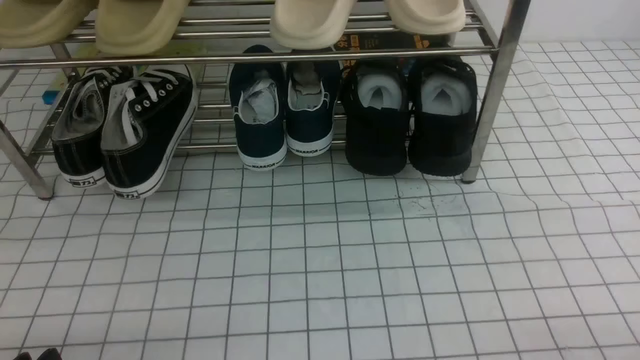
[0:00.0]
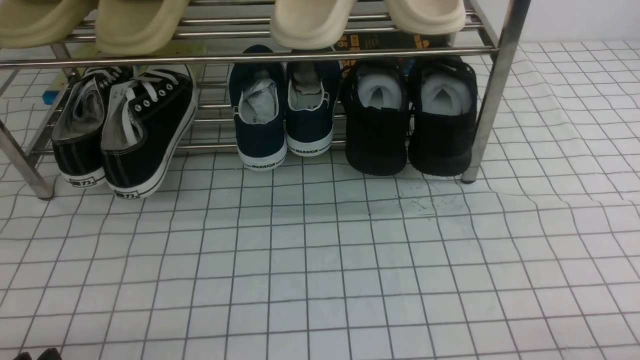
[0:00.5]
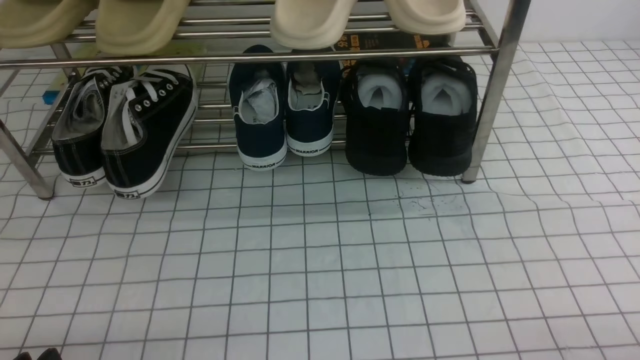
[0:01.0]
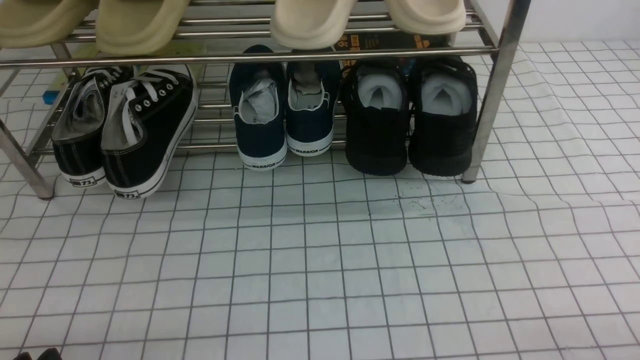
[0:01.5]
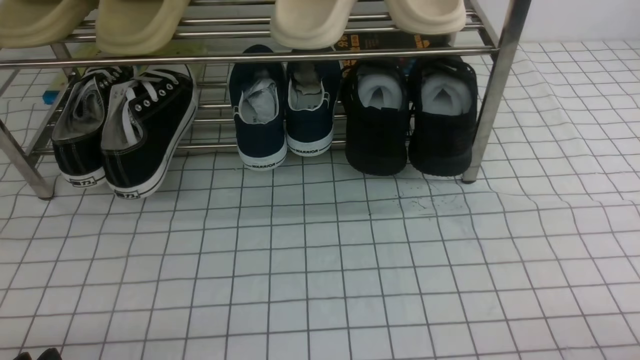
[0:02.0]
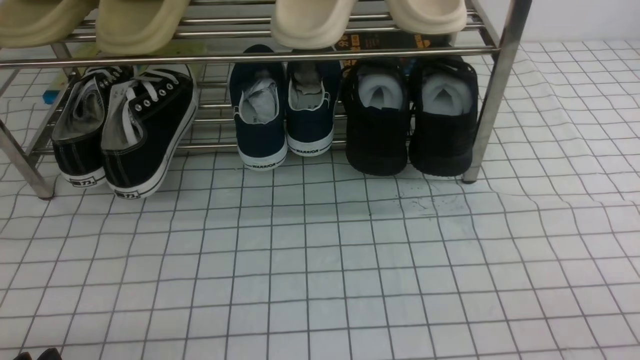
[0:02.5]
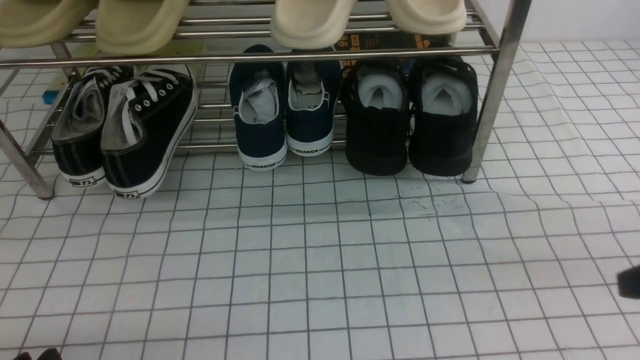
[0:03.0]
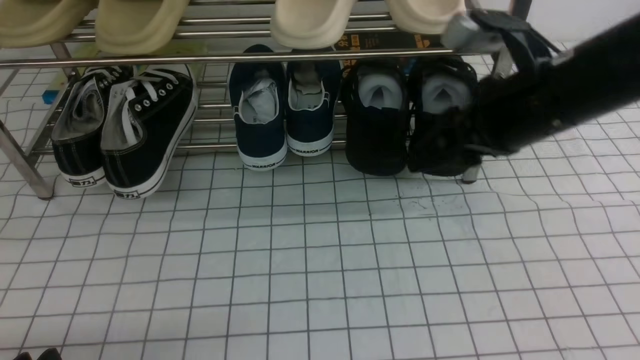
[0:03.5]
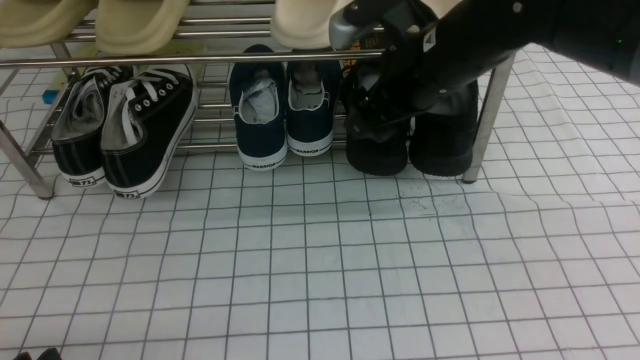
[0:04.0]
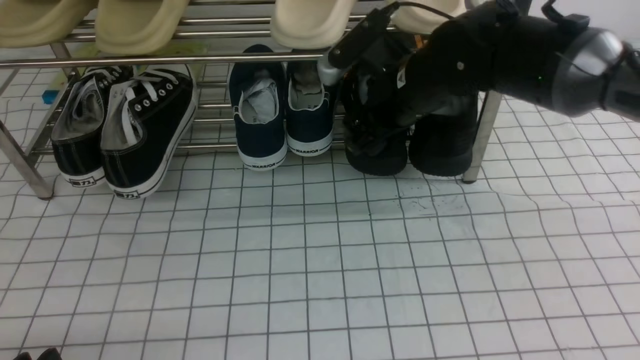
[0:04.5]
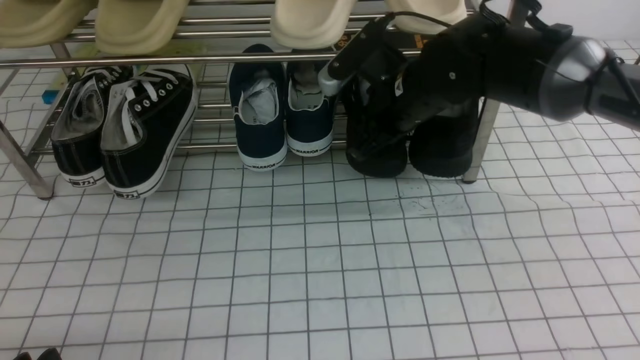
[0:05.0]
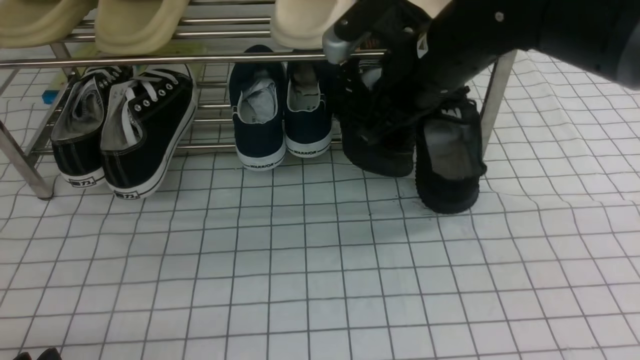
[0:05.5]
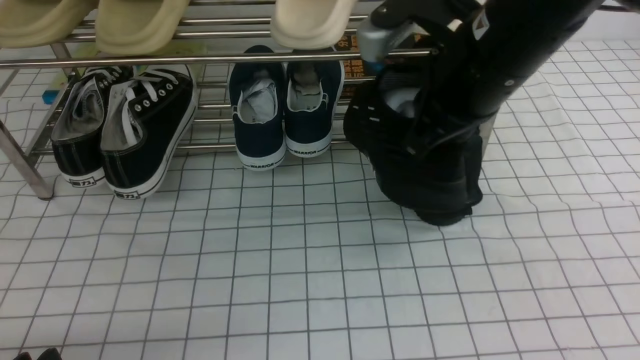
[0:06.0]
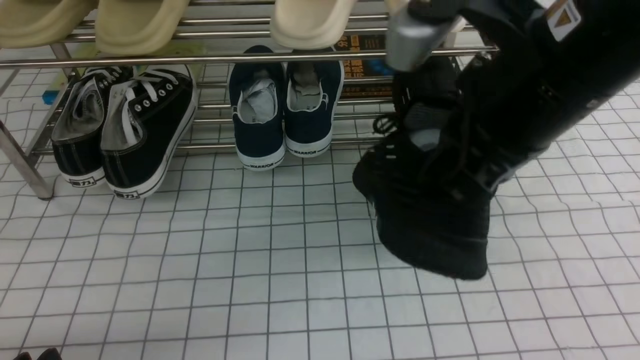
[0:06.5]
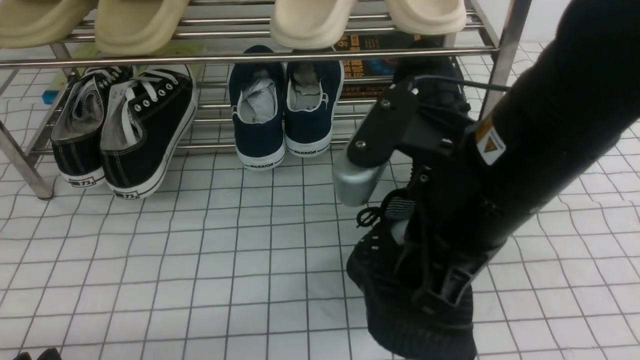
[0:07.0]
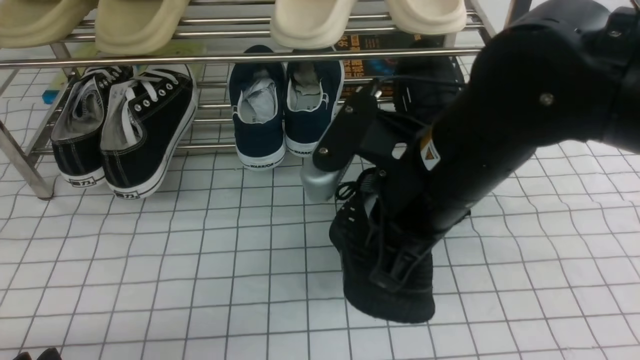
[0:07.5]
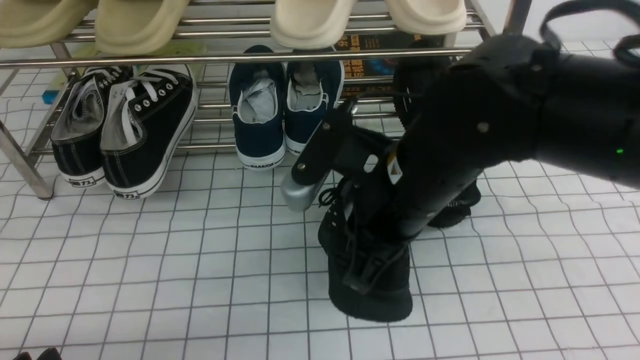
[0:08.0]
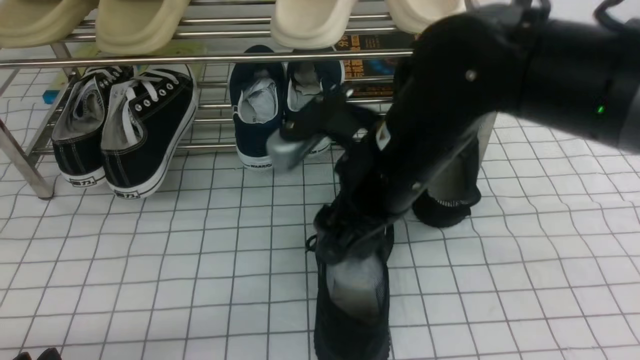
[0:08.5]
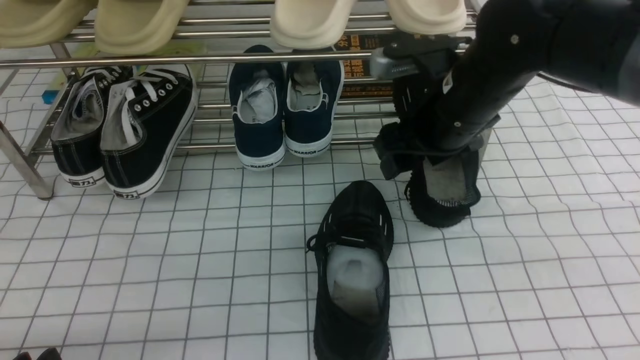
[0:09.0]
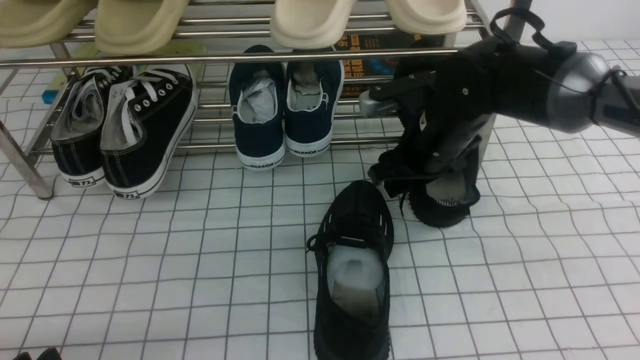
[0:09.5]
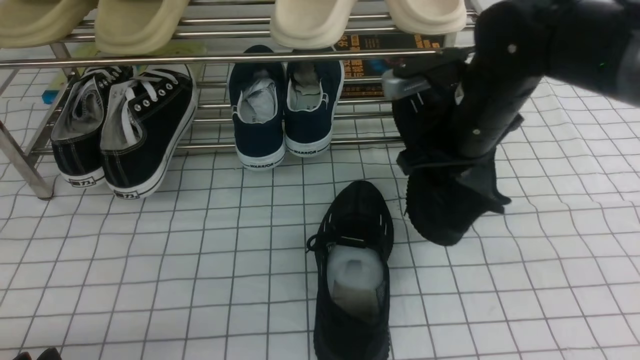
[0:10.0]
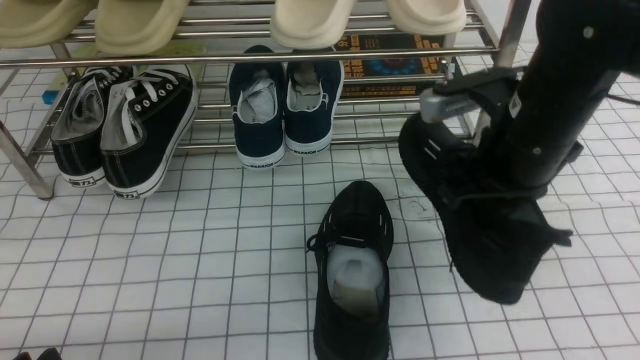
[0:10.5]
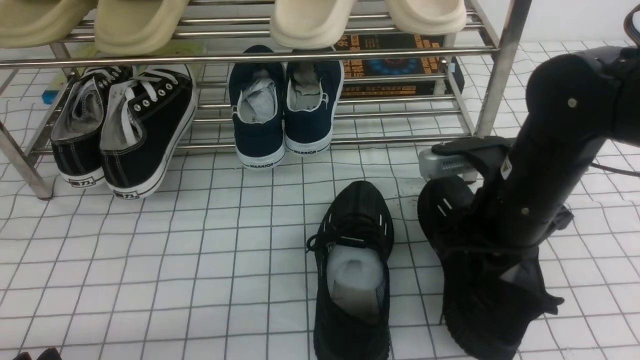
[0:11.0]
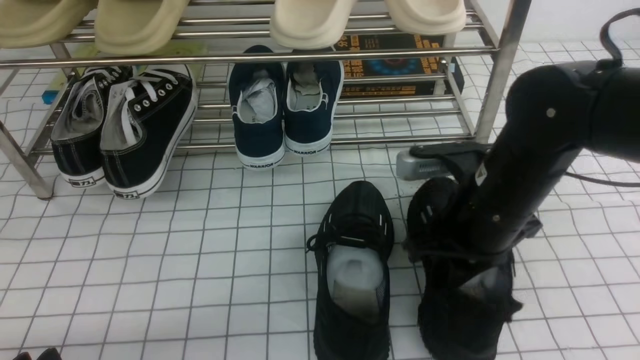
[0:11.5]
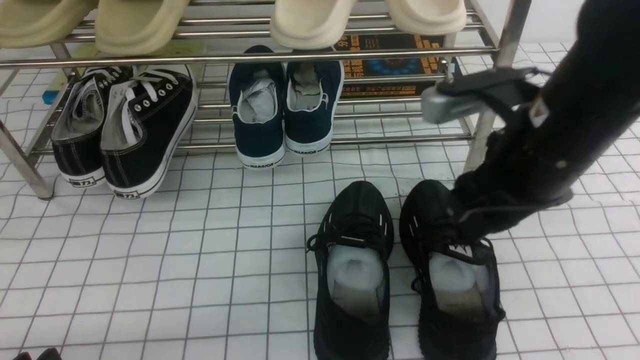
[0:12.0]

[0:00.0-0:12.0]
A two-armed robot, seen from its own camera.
Step, 0:00.0 to 0:04.5: use the right arm to clamp a shoe on the right side of the shoe rack.
Step, 0:05.0 to 0:08.5: use the right arm to take out the clamped shoe from the shoe rack and put it down.
Step, 0:09.0 to 0:09.5: use the right arm to clamp a shoe on the right side of the shoe rack.
0:02.0 to 0:04.0: The right gripper moves forward, to the left and upward, roughly 40 cm, and opens.
0:04.0 to 0:06.0: The right gripper heads backward, covering roughly 5 cm, and closes its fingers.
0:06.0 to 0:08.0: The right gripper moves downward and to the left, roughly 10 cm.
0:08.0 to 0:10.0: The right gripper is displaced forward and to the right by about 15 cm, and opens, then closes once more.
0:10.0 to 0:12.0: The right gripper moves backward and upward, approximately 10 cm, and opens its fingers.

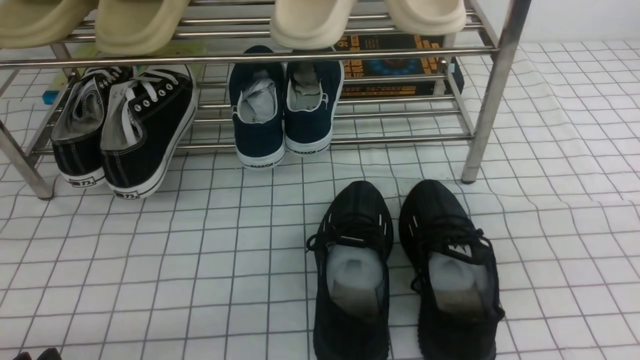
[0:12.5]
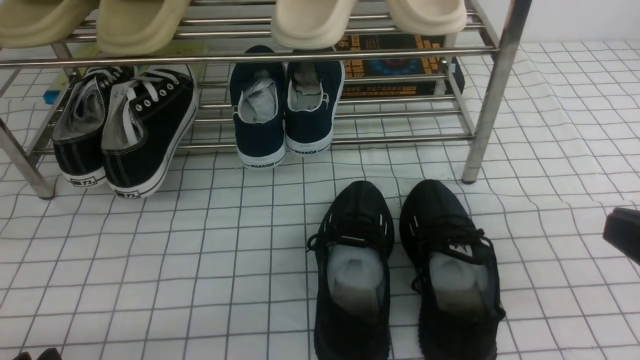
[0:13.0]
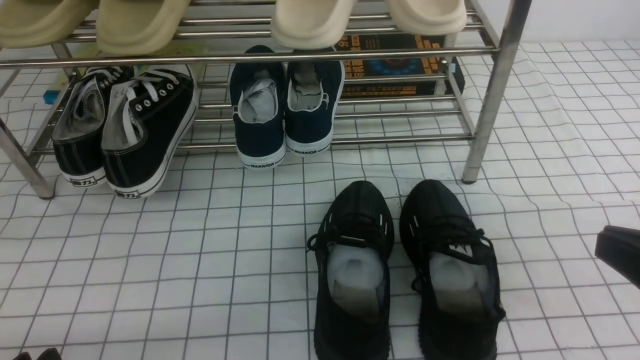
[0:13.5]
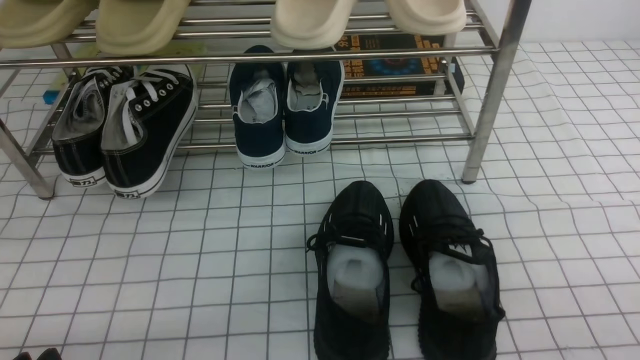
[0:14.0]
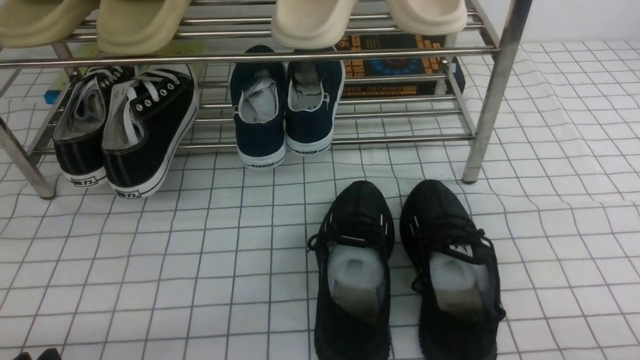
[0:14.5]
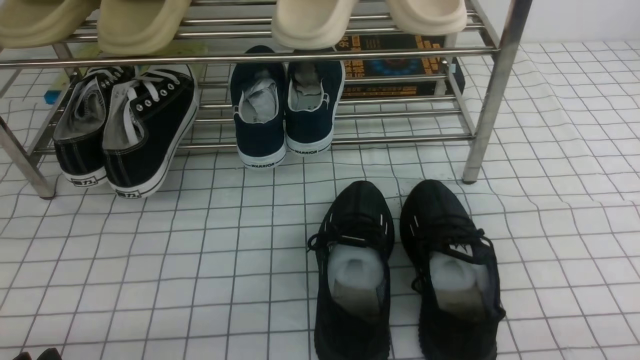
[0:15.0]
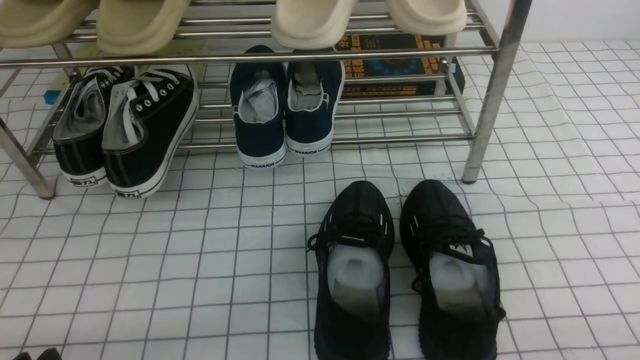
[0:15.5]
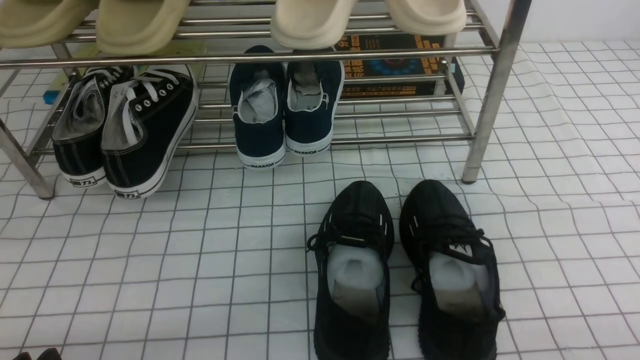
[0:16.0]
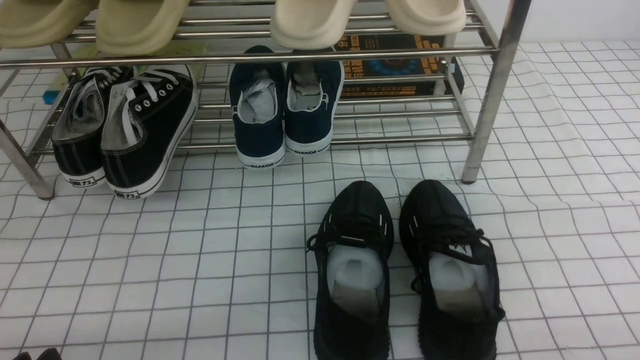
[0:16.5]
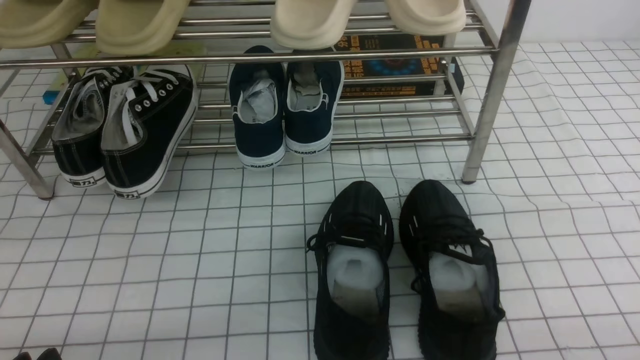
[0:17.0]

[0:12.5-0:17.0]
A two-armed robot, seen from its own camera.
0:12.5 to 0:14.5: The right gripper moves downward, some 20 cm.
0:14.5 to 0:17.0: Both grippers stay about where they are.
